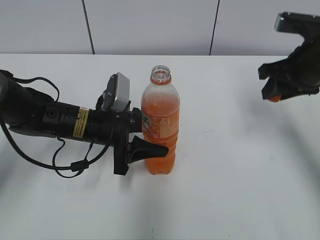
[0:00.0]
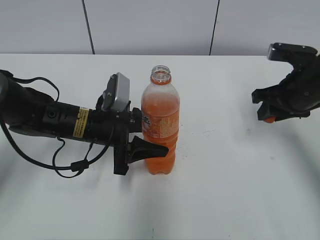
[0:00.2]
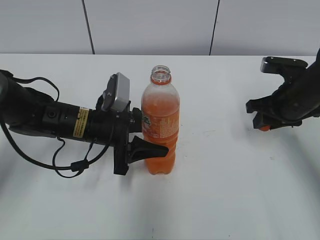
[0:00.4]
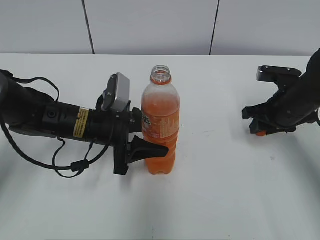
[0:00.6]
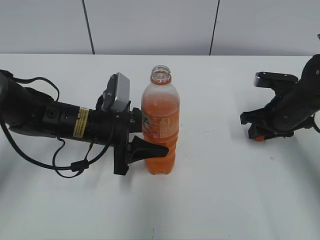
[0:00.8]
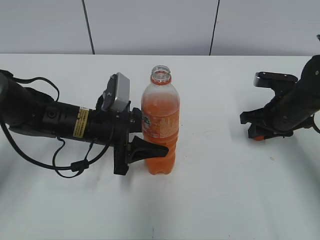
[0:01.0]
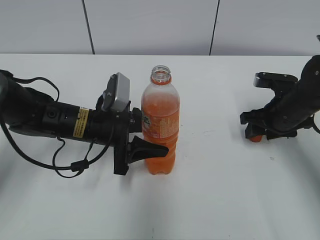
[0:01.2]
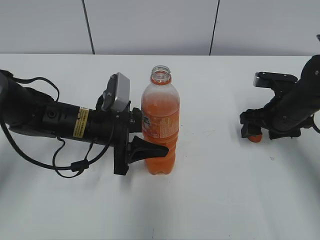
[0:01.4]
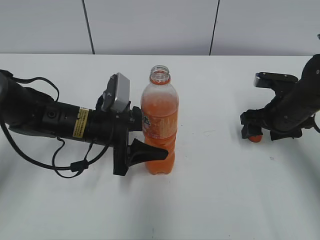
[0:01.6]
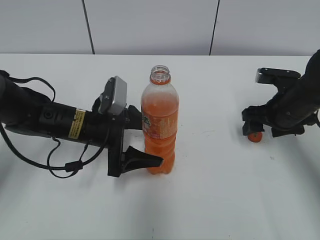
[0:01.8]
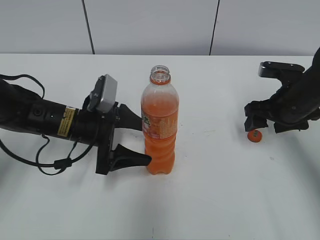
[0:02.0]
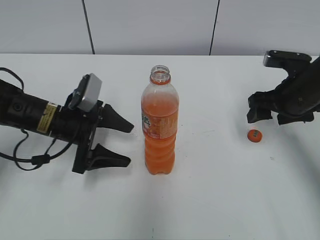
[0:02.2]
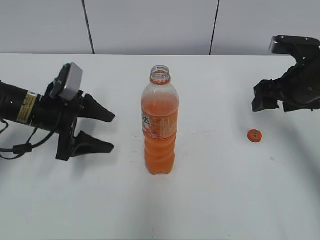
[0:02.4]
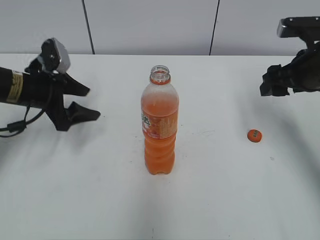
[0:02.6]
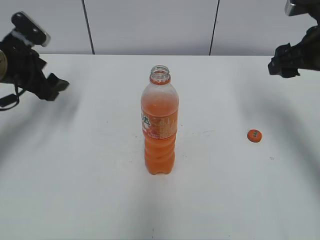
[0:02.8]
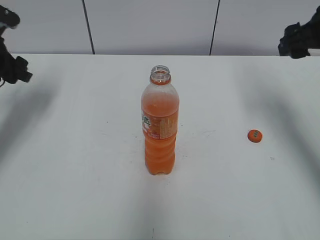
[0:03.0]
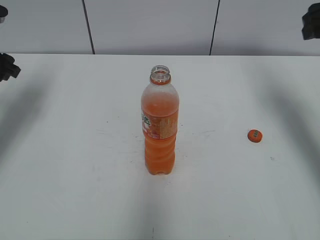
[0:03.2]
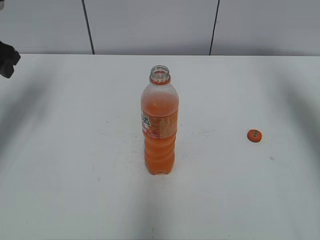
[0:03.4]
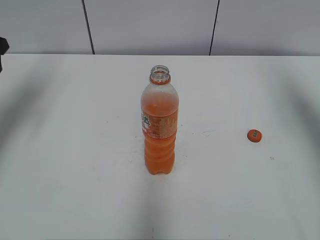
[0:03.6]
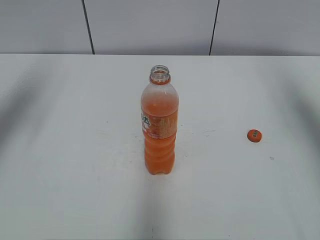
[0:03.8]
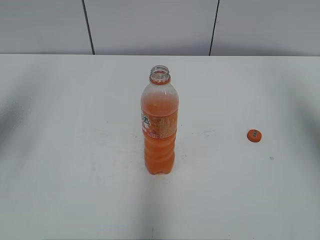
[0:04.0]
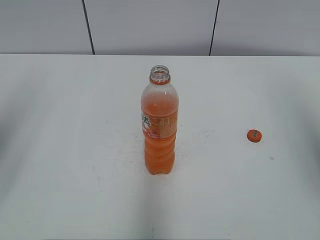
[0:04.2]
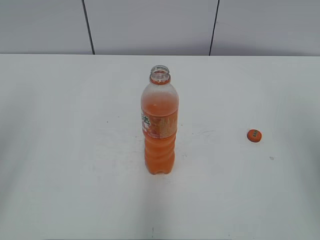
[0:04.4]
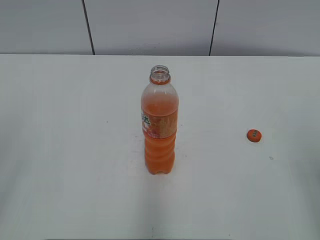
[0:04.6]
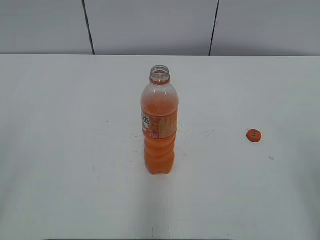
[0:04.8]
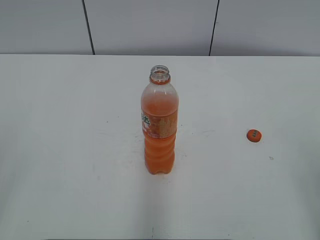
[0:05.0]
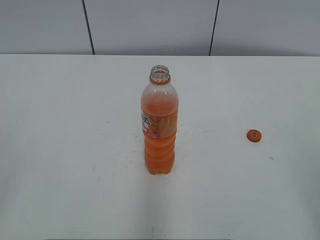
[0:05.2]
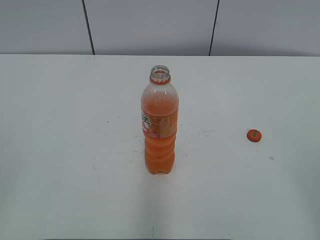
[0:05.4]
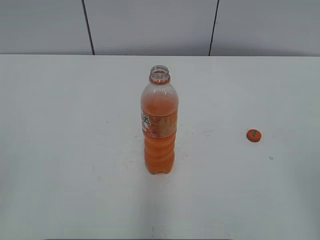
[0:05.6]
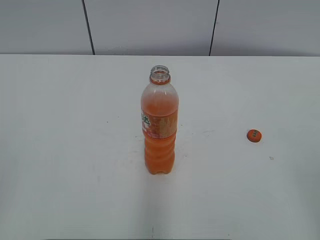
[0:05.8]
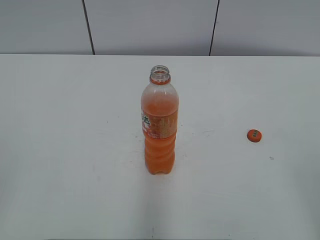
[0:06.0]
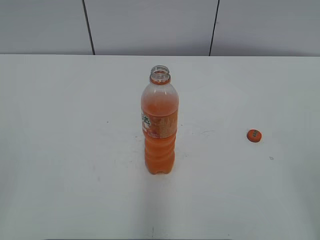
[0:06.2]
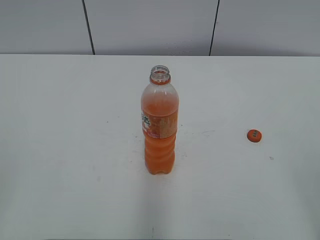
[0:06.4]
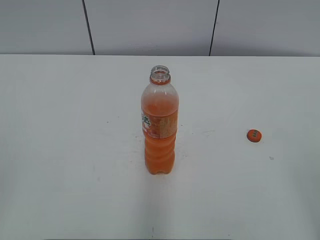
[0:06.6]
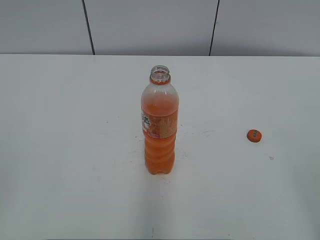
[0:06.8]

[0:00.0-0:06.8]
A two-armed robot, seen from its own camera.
Step, 0:01.4 to 0:01.6: Place the Mirinda with the left hand.
0:00.0 to 0:01.4: The right gripper travels downward by roughly 10 cm, and opens up.
0:01.4 to 0:02.8: The right gripper heads upward, covering approximately 15 cm, while the left gripper heads to the left, upward and forward, covering about 20 cm, and opens its fingers.
0:02.8 to 0:04.0: The left gripper goes roughly 20 cm upward and backward. Meanwhile the right gripper travels upward, backward and to the right by roughly 20 cm.
0:04.0 to 0:05.4: The right gripper is displaced backward and downward by roughly 25 cm. Meanwhile the left gripper is displaced backward by approximately 25 cm.

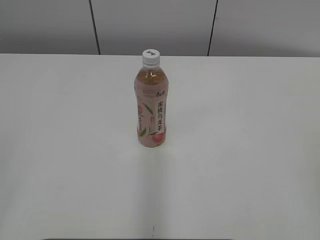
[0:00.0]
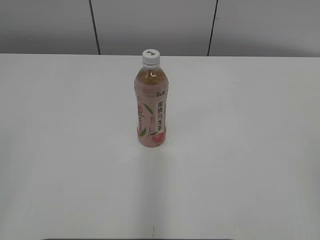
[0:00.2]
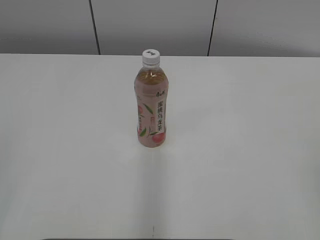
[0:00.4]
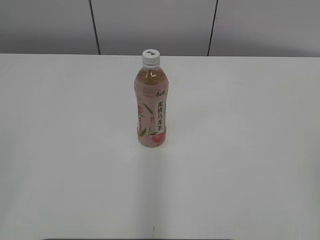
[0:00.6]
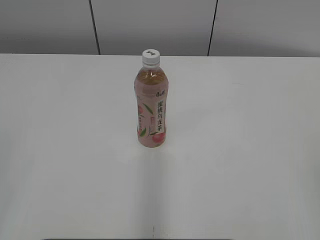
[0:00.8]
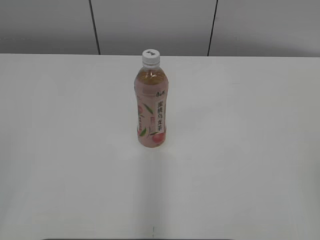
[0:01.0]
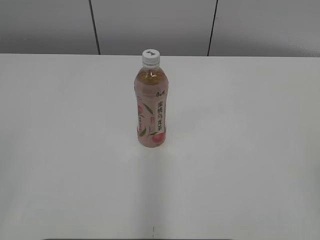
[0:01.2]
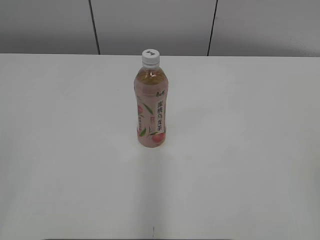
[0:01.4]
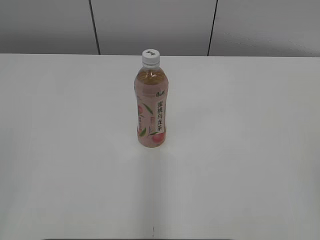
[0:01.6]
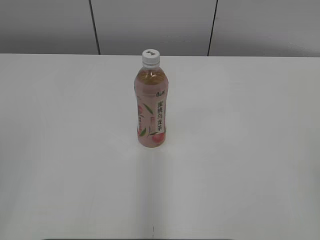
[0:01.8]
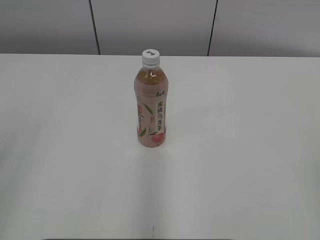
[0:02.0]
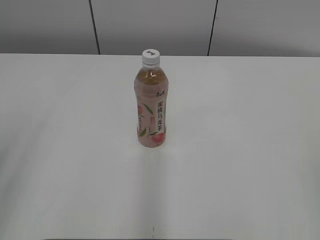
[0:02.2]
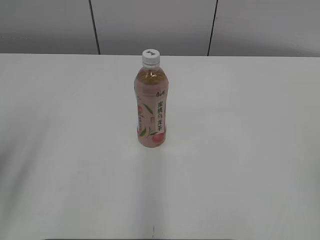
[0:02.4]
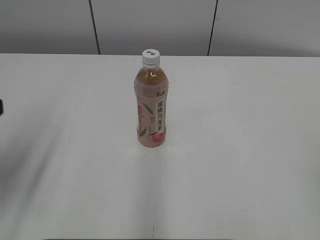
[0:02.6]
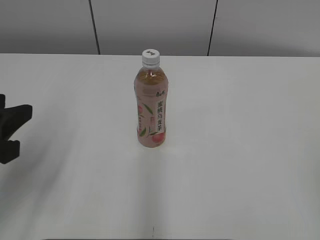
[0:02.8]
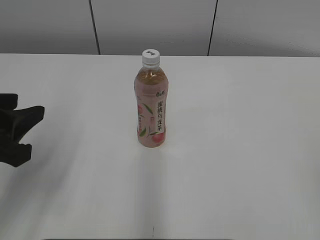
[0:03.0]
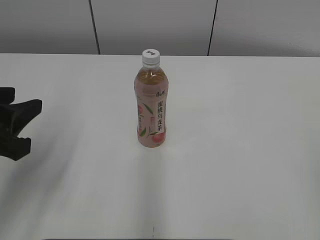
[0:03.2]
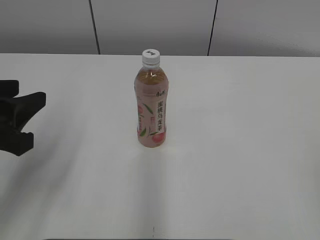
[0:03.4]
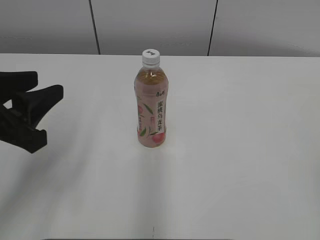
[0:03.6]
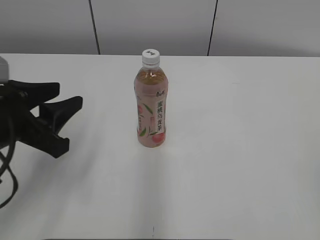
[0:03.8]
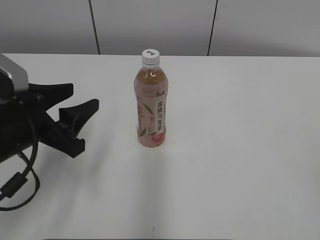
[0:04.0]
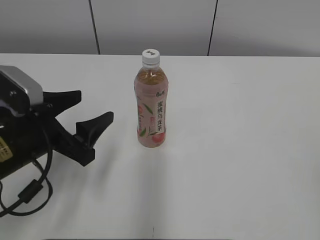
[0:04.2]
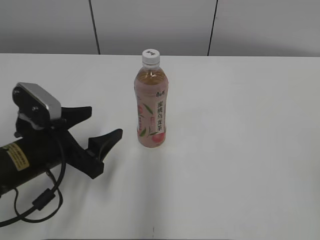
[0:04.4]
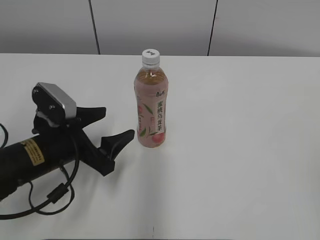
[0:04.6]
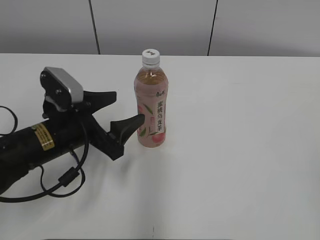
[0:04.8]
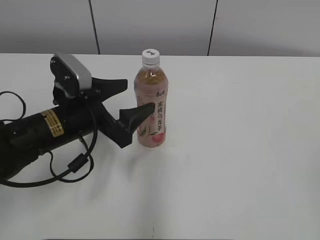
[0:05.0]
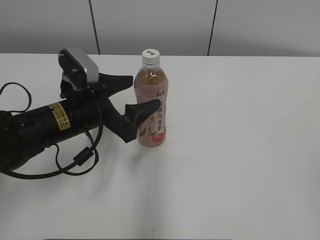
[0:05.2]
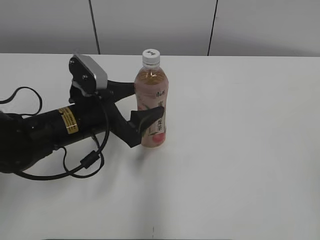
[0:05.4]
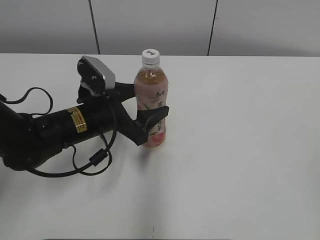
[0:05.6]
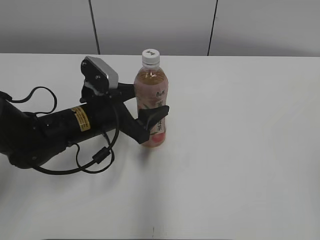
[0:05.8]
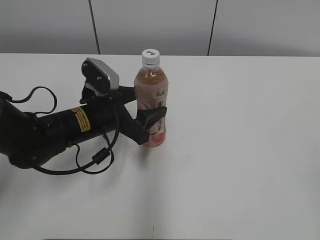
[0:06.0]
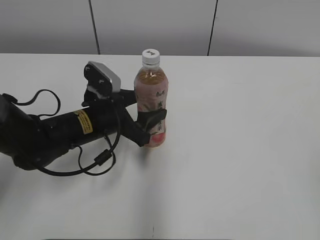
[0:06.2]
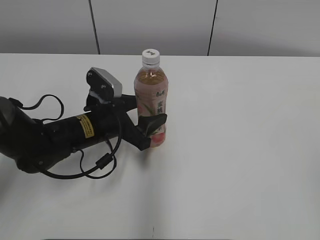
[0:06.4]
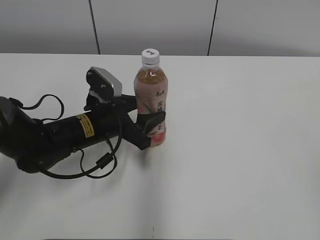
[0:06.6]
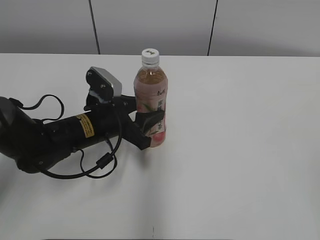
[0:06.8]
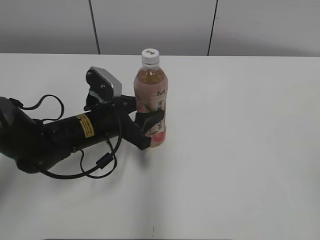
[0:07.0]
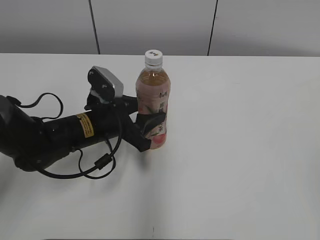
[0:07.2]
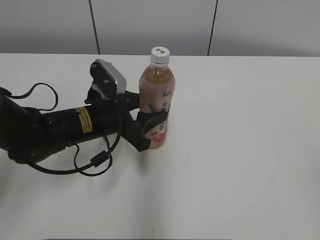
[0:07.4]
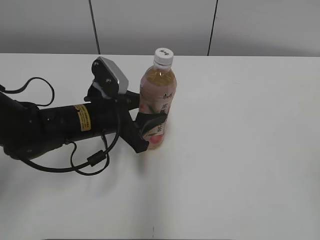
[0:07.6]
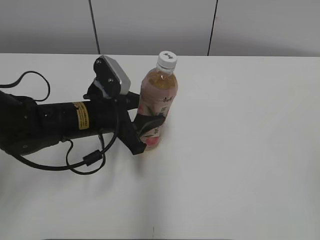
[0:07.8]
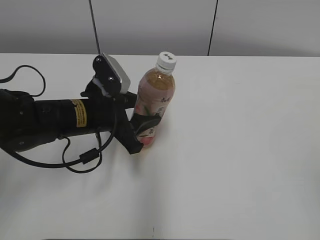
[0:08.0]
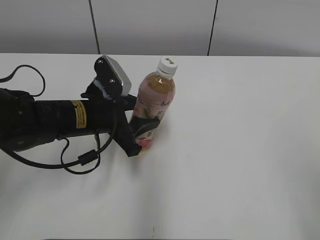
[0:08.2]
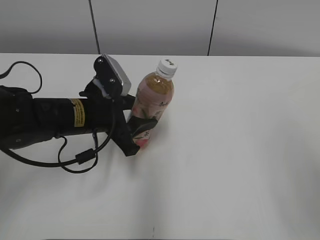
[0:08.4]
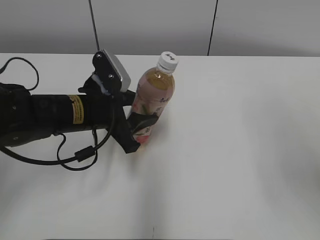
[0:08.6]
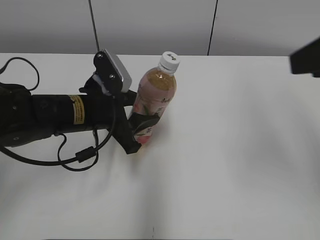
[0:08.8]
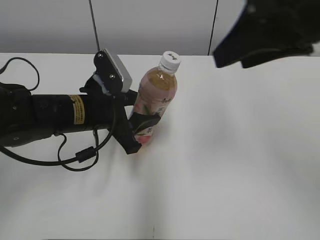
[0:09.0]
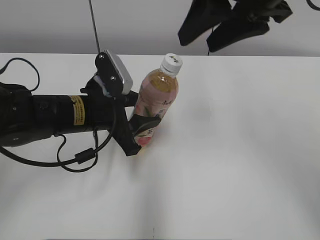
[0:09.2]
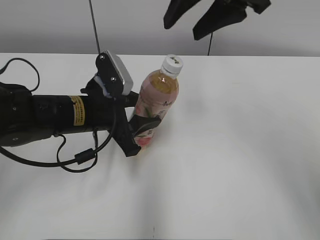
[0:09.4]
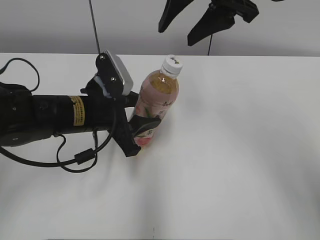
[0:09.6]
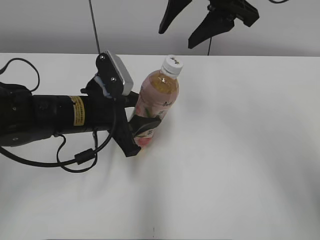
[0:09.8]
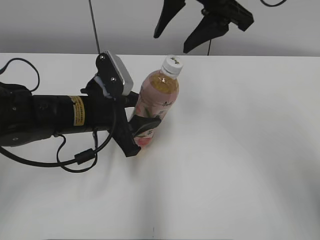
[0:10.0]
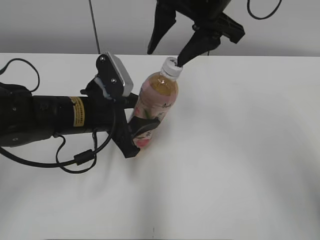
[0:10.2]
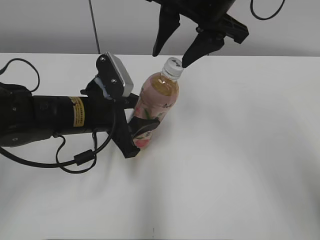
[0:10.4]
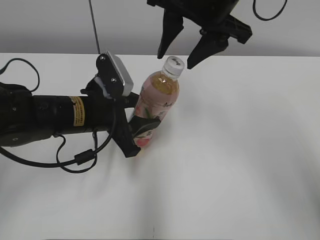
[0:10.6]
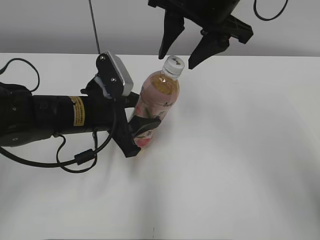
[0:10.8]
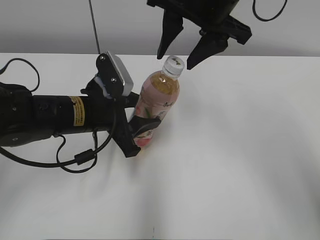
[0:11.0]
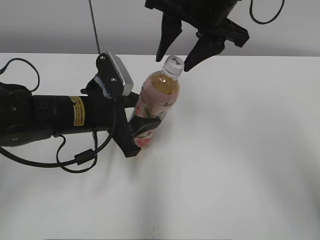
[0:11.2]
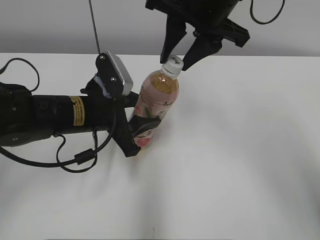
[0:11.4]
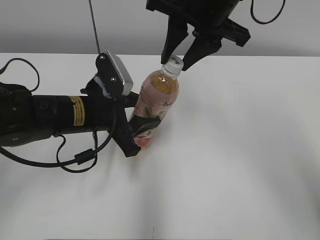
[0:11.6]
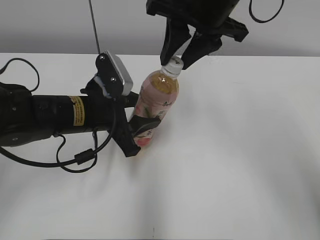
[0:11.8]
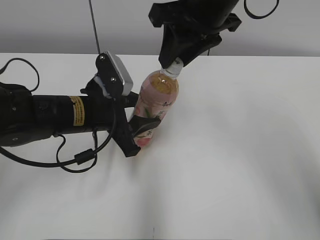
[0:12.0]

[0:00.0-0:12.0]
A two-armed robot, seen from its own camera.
Step, 0:00.0 to 0:07.0: Grab the Peach Oolong Tea with the left hand.
0:01.6 to 0:03.0: The left gripper shifts some 20 cm forward, to the right and downward.
0:03.0 to 0:04.4: The left gripper travels downward, forward and to the right by approximately 15 cm, and opens up.
0:04.4 to 0:06.0: The left gripper heads forward and to the right, covering approximately 10 cm.
0:06.0 to 0:07.6: The left gripper closes up.
0:07.6 to 0:09.0: The right gripper travels forward and to the left by approximately 30 cm.
0:09.0 to 0:10.4: The right gripper is displaced forward and to the left by about 15 cm.
0:10.4 to 0:12.0: The right gripper closes.

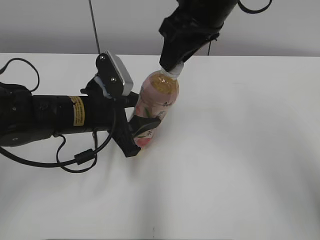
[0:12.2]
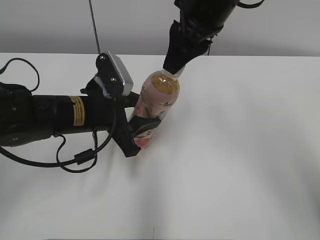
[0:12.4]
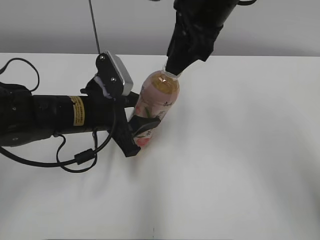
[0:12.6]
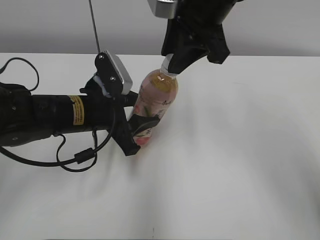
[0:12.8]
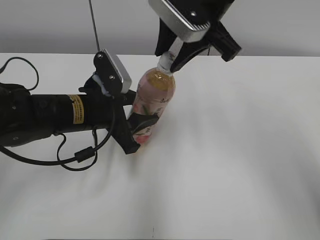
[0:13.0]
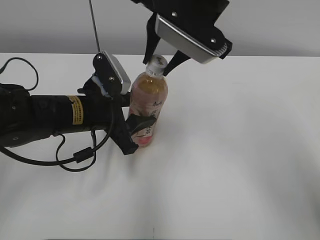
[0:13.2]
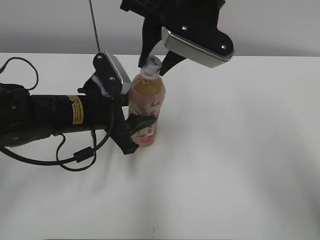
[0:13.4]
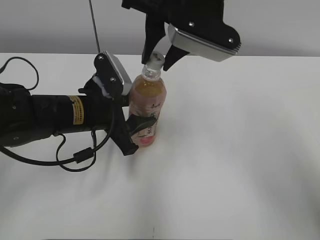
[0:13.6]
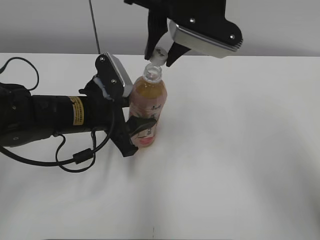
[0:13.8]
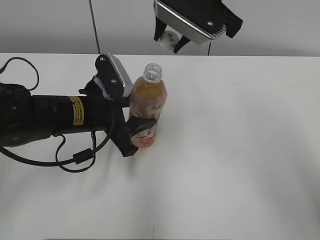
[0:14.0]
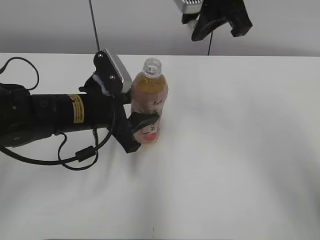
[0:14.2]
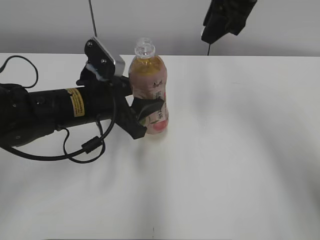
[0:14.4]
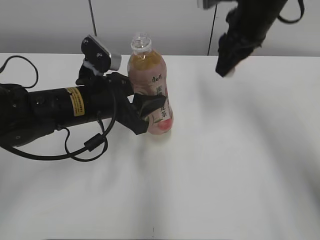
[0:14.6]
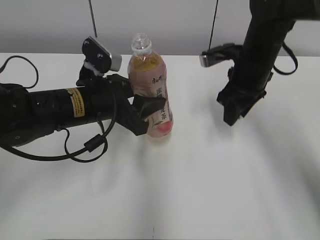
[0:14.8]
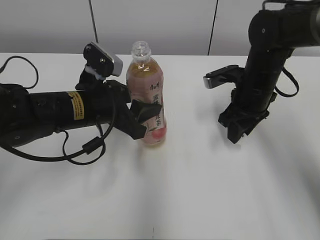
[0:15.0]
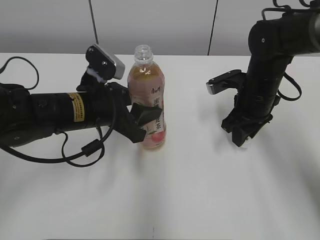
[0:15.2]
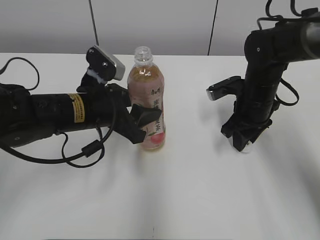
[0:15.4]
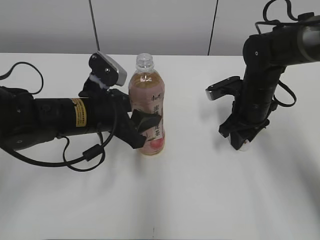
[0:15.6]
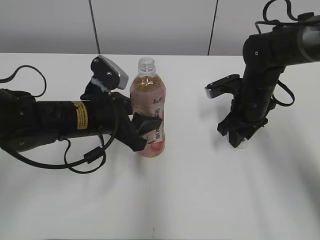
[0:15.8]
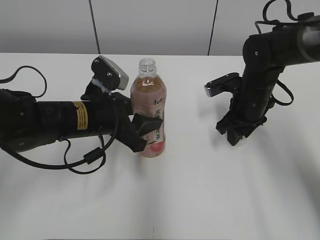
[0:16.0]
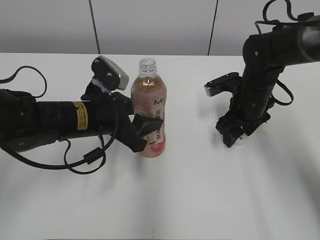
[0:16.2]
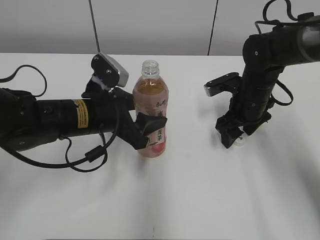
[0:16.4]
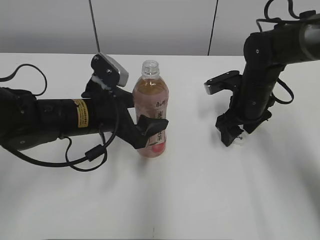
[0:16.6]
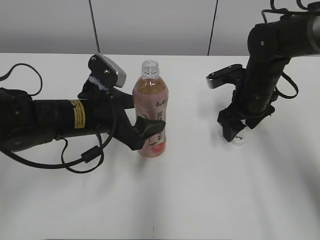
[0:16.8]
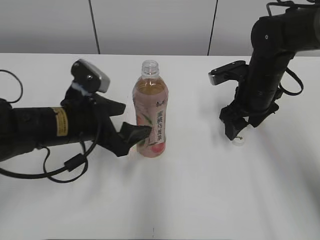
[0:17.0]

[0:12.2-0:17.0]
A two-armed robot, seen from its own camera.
Step, 0:12.2 to 0:13.4: Secure the Peach Oolong Tea with the left hand.
Step, 0:13.8 to 0:16.0: Place the bottle cap on the right.
Step, 0:16.2 to 0:16.4: Place the Peach Oolong Tea with the left hand.
0:13.8 to 0:15.4: The right gripper goes approximately 25 cm downward and to the right.
0:15.4 to 0:17.0: The left gripper opens up. Meanwhile the right gripper opens its fingers.
